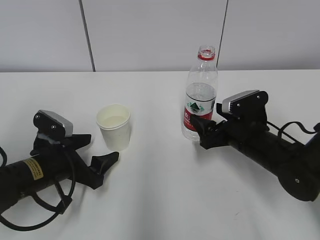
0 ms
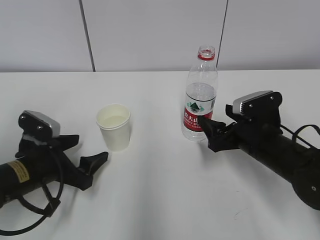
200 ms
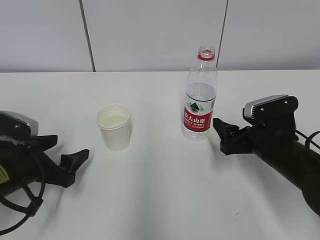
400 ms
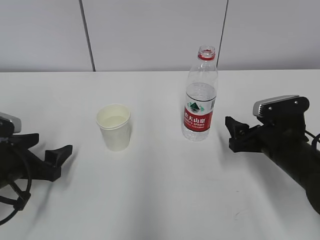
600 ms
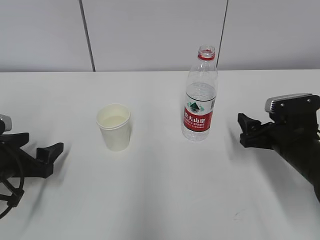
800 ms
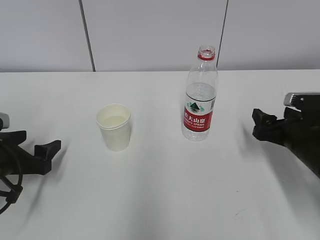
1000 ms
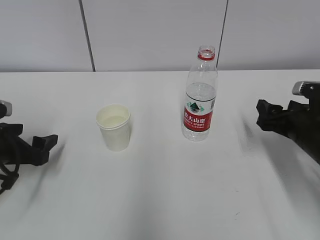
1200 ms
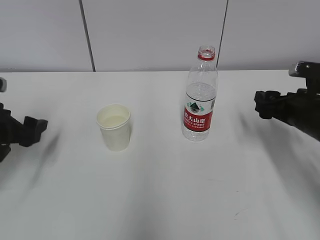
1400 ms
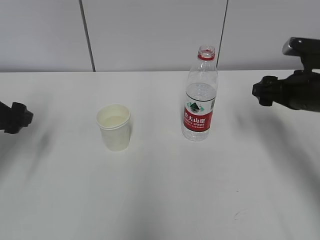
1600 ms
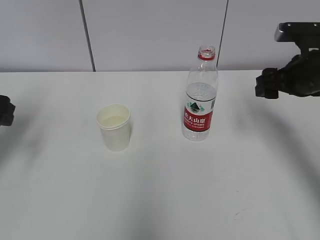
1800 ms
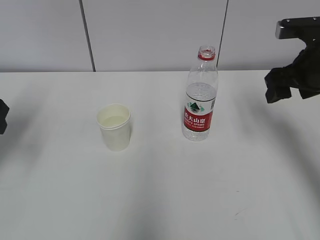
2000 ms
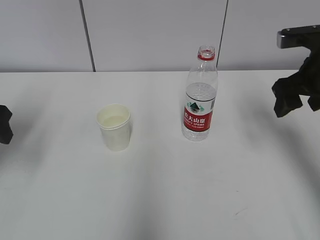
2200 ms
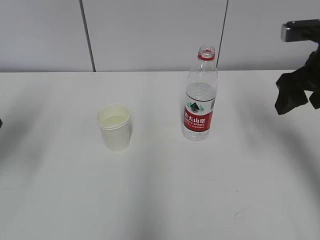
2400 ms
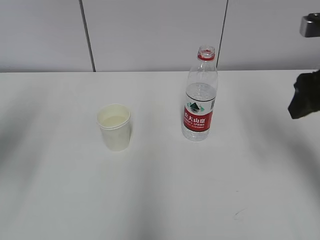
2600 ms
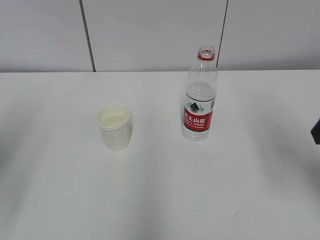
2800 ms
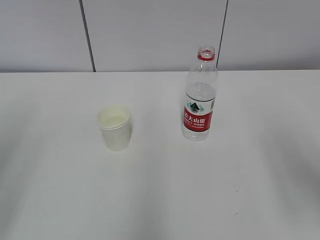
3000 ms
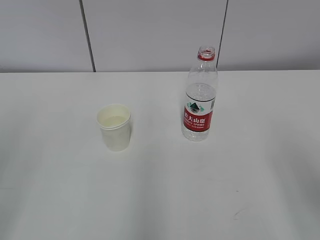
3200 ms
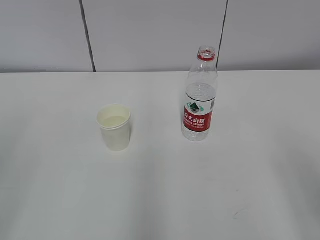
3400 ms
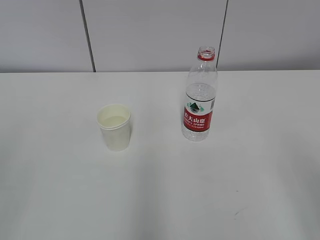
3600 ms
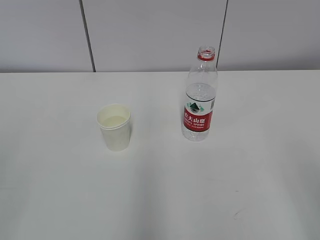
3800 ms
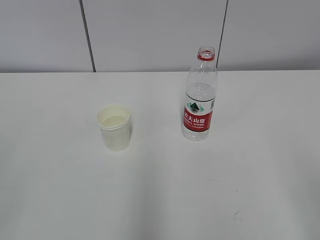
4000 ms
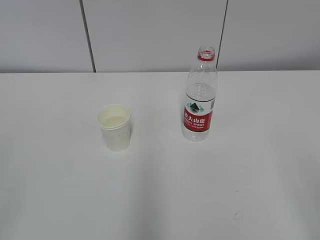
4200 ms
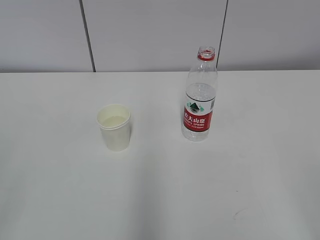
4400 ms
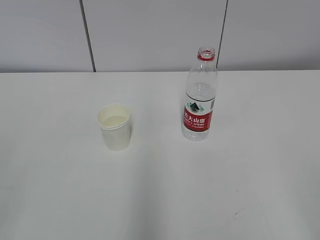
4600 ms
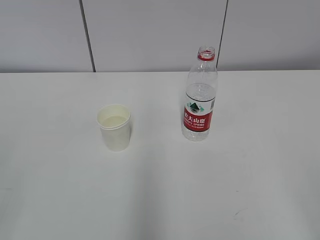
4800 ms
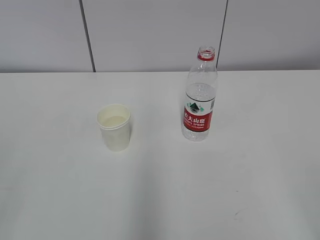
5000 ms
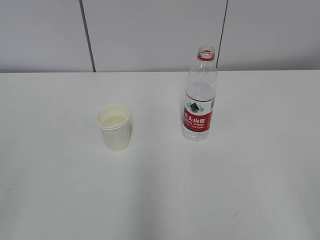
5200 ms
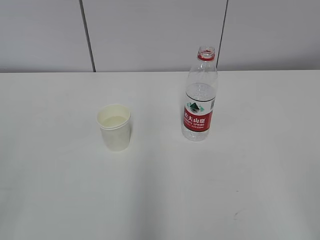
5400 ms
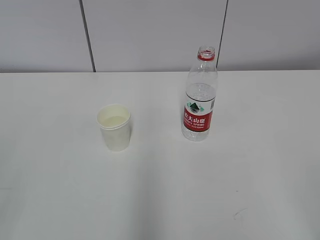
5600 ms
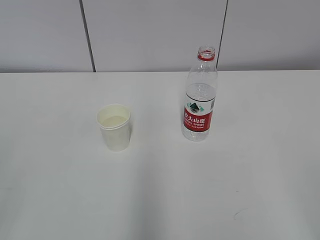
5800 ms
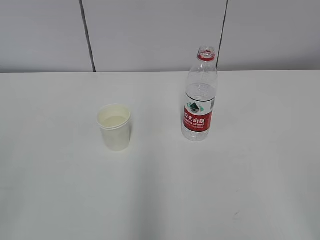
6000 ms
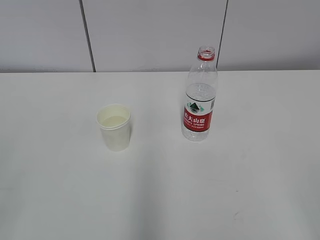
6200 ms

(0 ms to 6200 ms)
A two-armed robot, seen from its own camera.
0 ms - 1600 ms: The left gripper heads upward and to the left, covering approximately 15 cm. Meanwhile the right gripper travels upward and to the right by some 15 cm.
1600 ms - 3200 ms: The left gripper travels backward and upward by some 25 cm; the right gripper is displaced backward by about 20 cm.
4600 ms - 6200 ms: Both grippers stay about where they are.

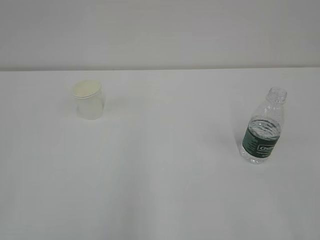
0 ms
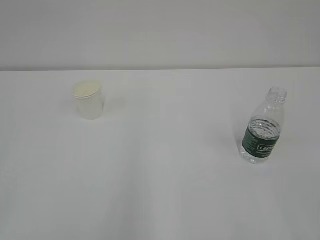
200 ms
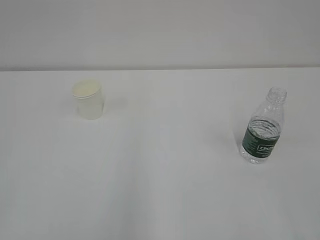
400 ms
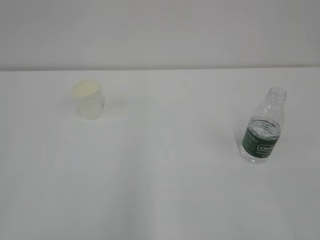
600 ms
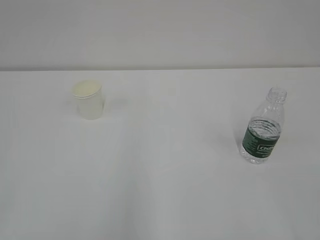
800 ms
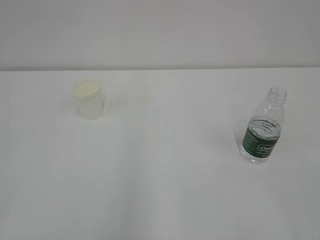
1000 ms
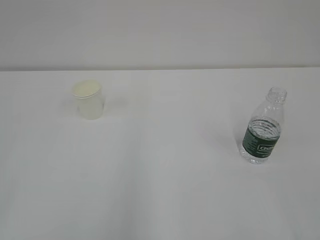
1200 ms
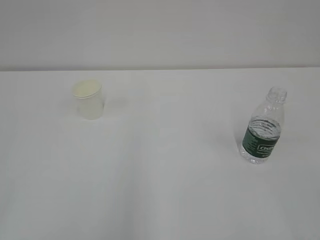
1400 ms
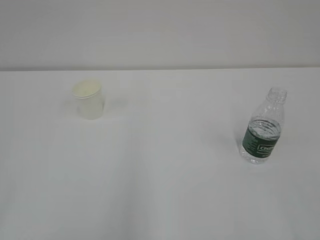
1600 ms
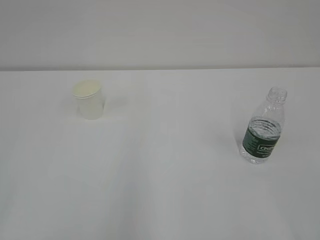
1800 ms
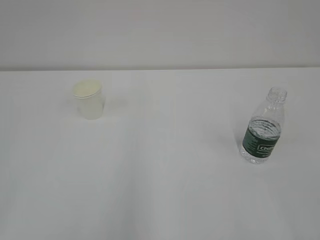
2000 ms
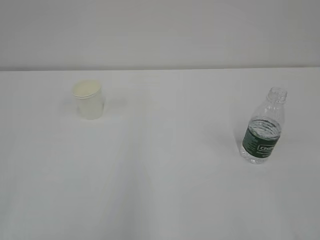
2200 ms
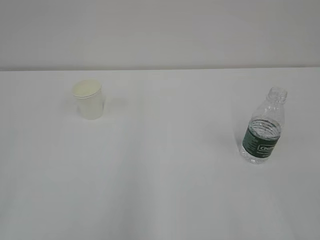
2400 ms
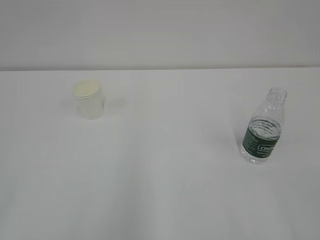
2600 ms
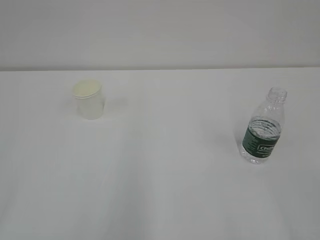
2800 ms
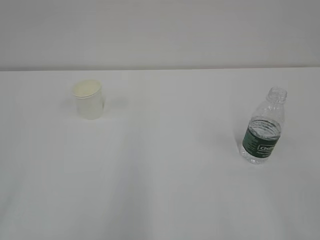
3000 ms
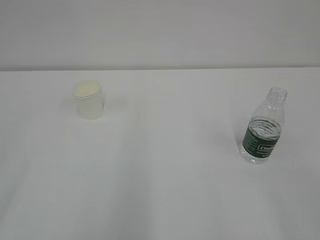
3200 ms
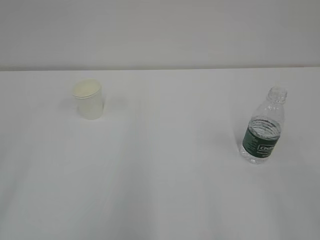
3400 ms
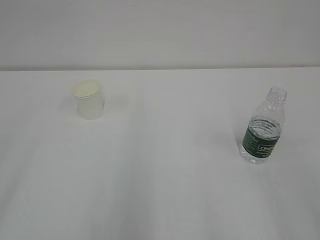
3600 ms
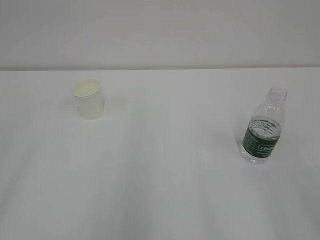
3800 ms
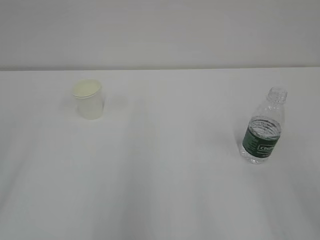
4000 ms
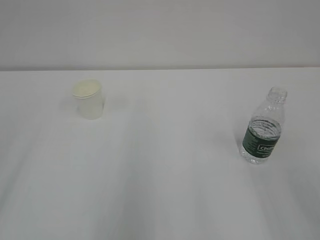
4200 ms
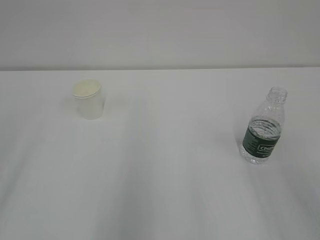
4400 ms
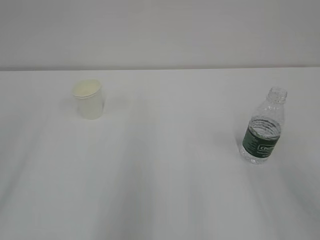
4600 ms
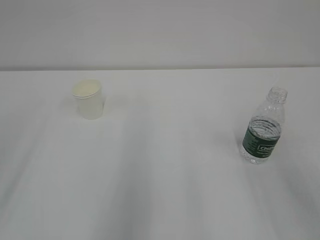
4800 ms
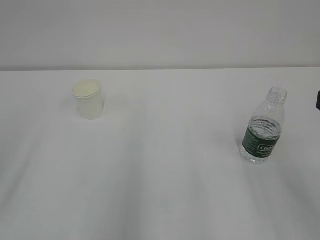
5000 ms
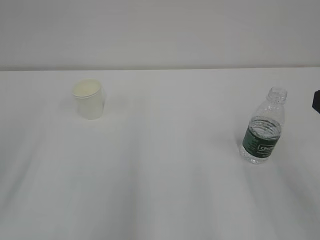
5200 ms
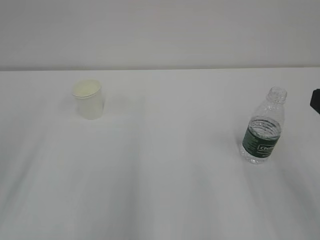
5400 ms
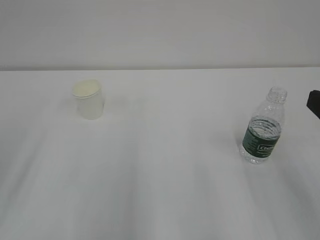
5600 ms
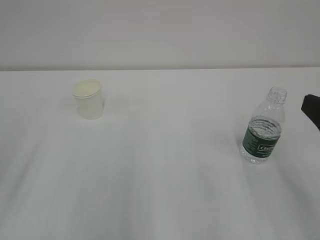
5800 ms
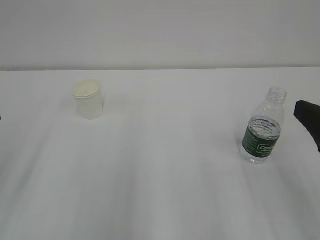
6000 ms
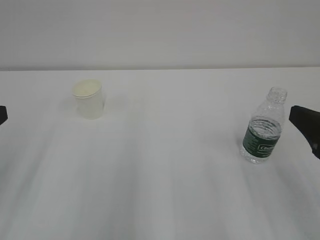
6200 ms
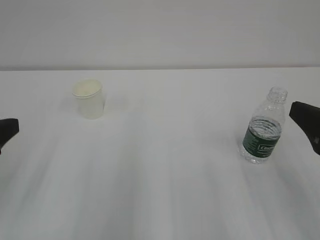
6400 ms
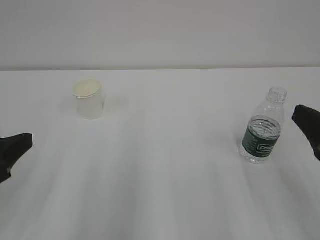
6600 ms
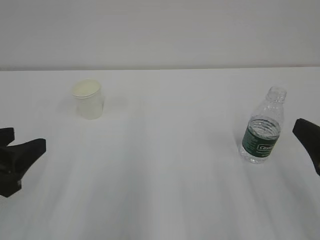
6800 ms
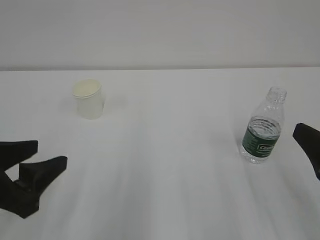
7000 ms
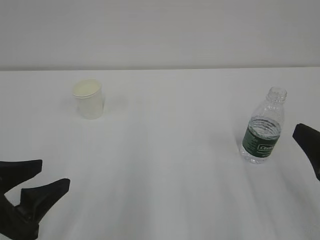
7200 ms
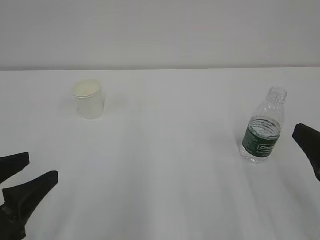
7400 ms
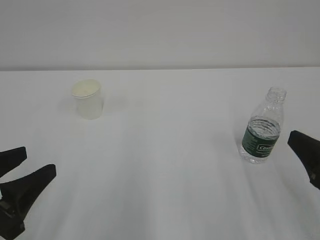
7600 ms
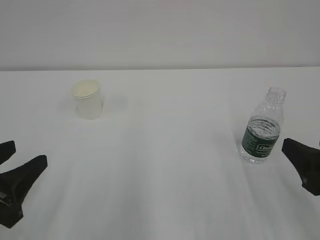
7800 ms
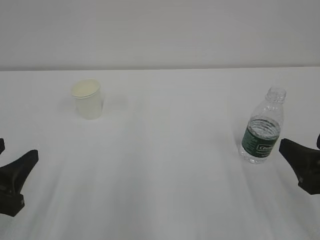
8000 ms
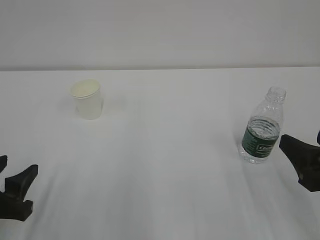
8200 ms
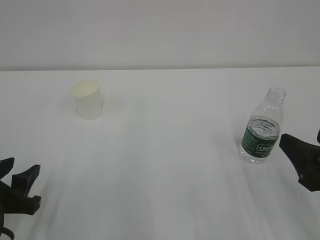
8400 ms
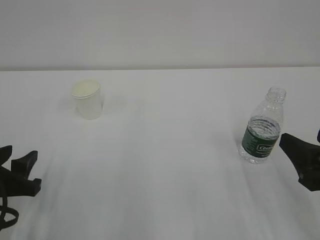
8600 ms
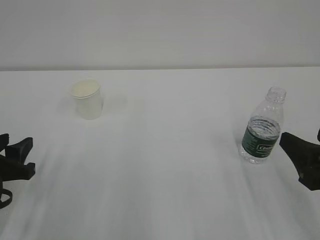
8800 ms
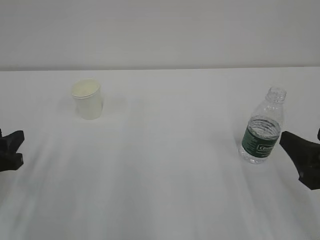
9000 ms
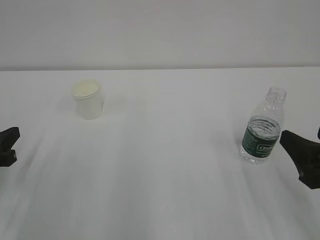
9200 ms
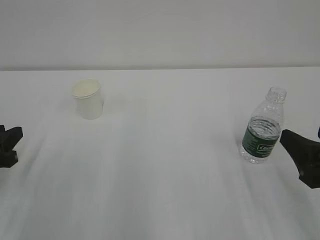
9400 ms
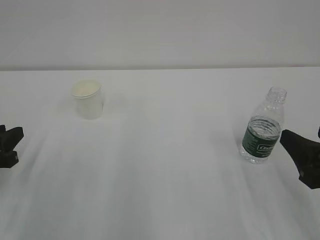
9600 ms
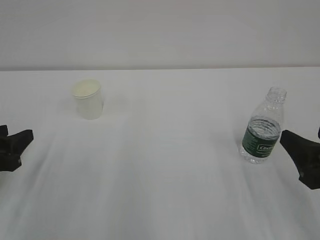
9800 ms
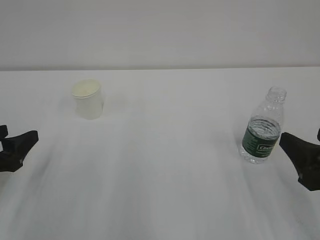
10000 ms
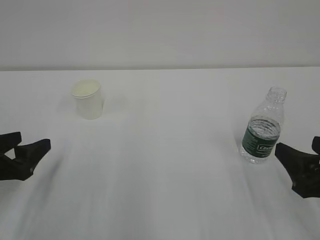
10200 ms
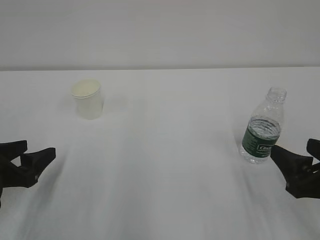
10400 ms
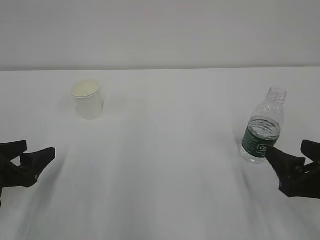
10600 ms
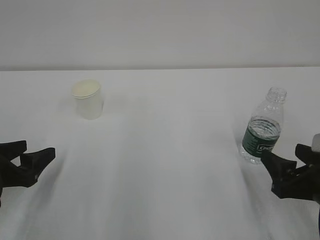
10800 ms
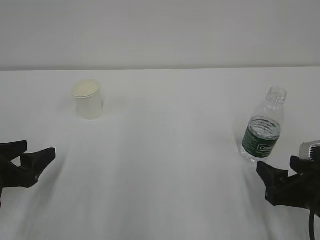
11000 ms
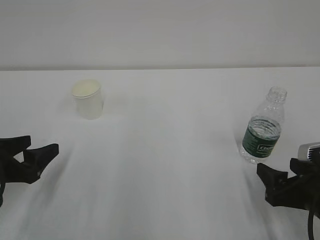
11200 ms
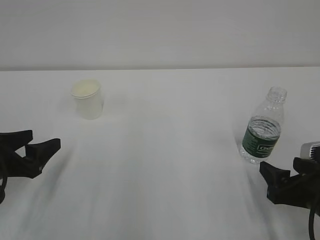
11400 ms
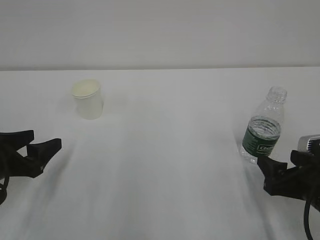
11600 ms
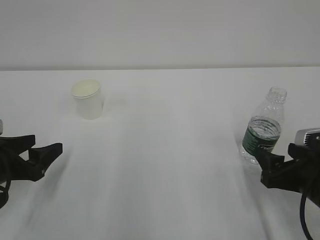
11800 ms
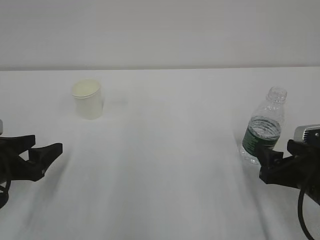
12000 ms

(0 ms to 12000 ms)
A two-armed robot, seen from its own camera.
4400 ms - 6000 ms: The right gripper moves downward, about 5 cm.
6000 ms - 7600 ms: The left gripper goes roughly 10 cm downward, to the right and backward.
7600 ms - 9000 ms: The left gripper shifts some 10 cm forward and to the left, and closes up.
9000 ms - 10400 ms: The left gripper opens.
10400 ms - 12000 ms: The right gripper moves downward, about 5 cm.

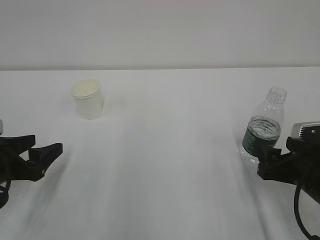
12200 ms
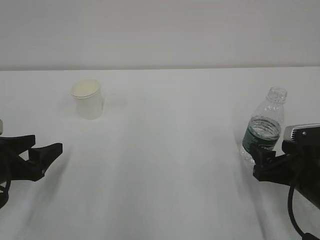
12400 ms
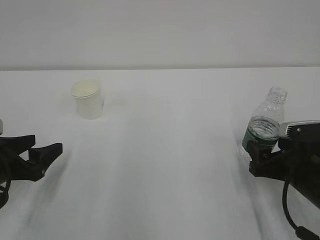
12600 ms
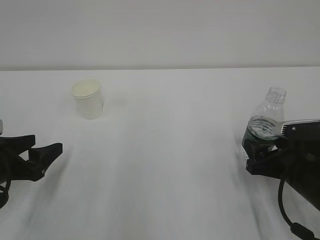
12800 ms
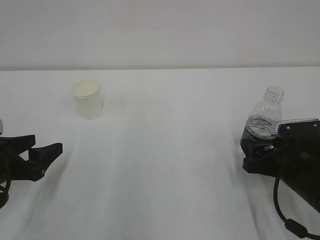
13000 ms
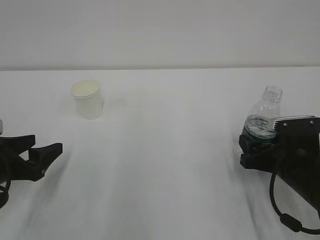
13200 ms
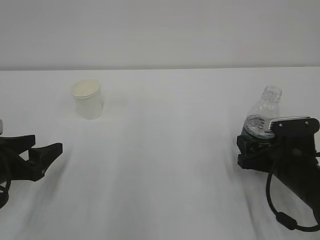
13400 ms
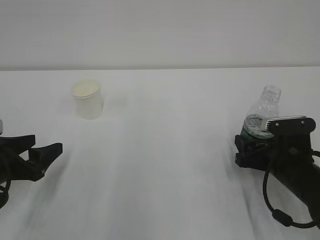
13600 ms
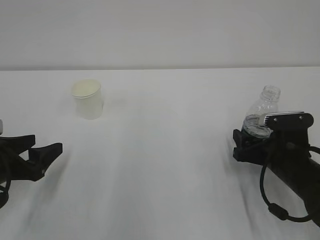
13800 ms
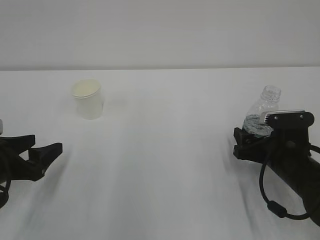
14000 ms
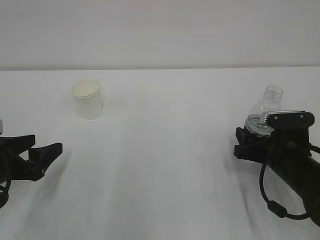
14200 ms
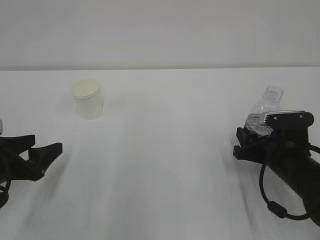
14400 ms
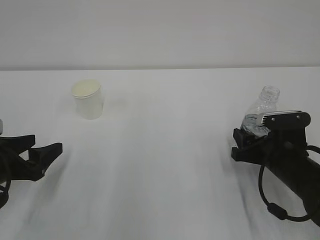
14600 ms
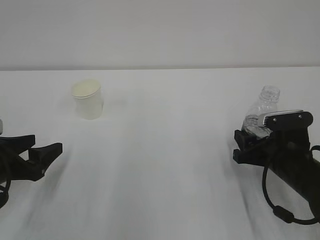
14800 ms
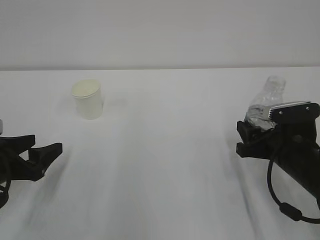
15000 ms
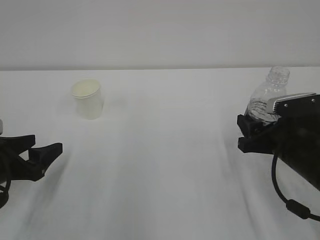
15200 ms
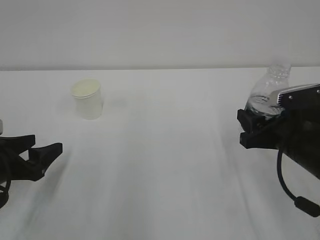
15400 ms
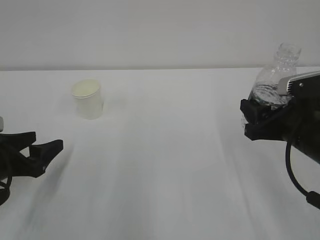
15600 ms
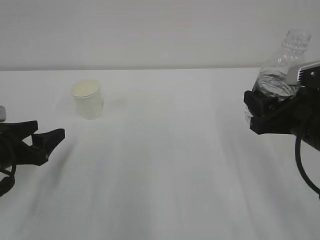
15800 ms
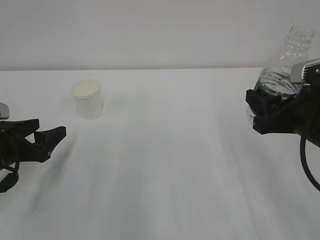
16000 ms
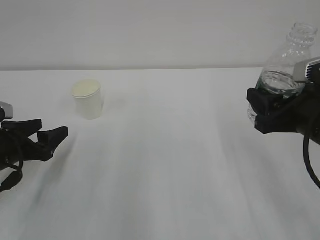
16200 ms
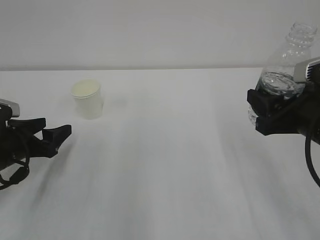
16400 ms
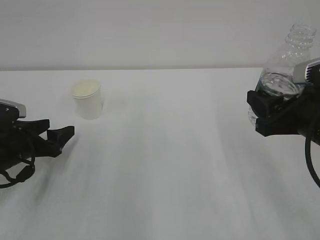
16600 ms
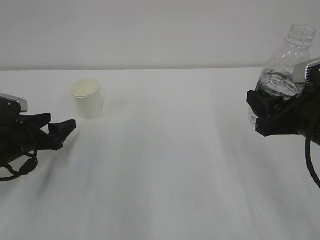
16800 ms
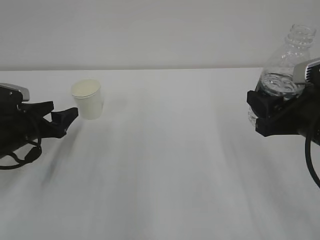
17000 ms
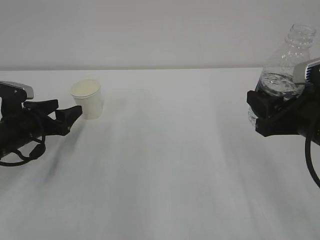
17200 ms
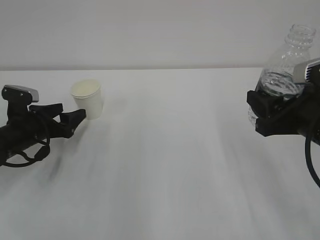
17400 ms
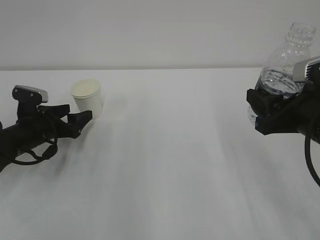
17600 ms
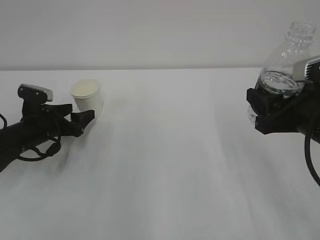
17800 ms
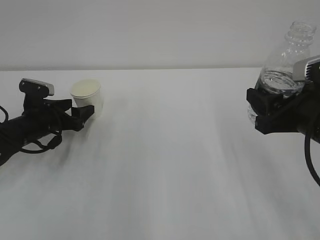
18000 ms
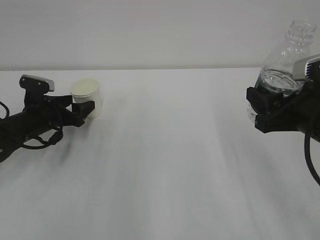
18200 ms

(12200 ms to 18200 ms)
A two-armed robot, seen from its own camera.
12200 ms - 13800 ms: The right gripper moves forward, approximately 5 cm.
13800 ms - 15200 ms: The right gripper changes place by roughly 5 cm, and closes.
15200 ms - 16600 ms: The left gripper shifts approximately 5 cm forward. Meanwhile the right gripper goes approximately 10 cm upward.
16600 ms - 18200 ms: The left gripper goes about 10 cm forward.
